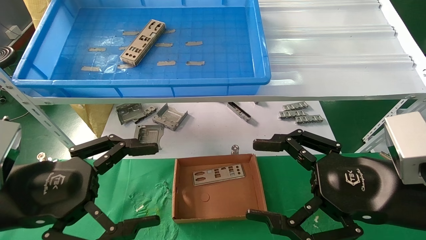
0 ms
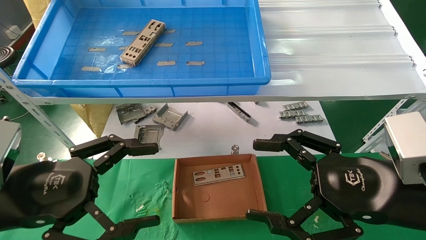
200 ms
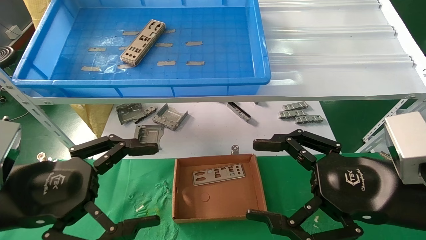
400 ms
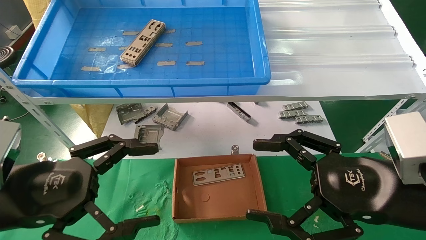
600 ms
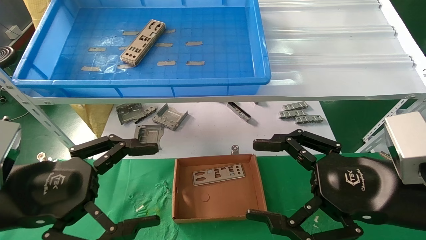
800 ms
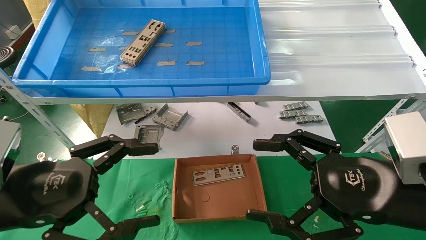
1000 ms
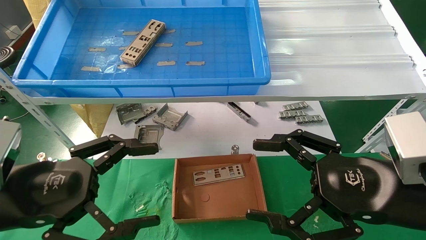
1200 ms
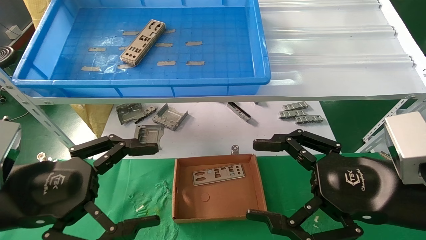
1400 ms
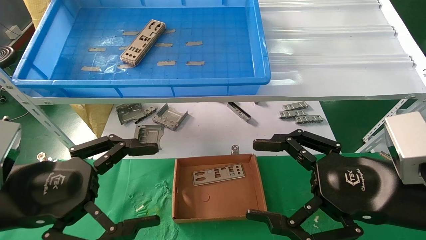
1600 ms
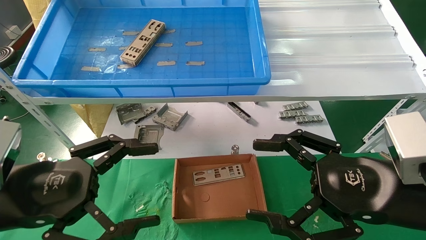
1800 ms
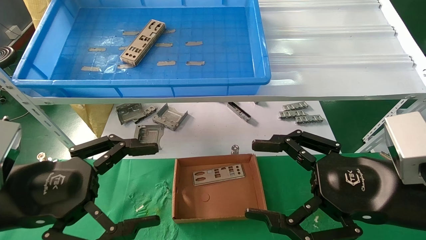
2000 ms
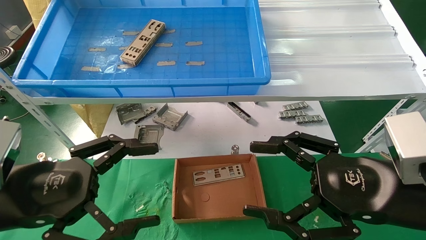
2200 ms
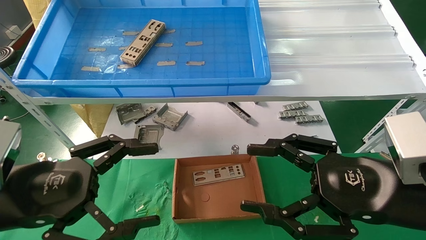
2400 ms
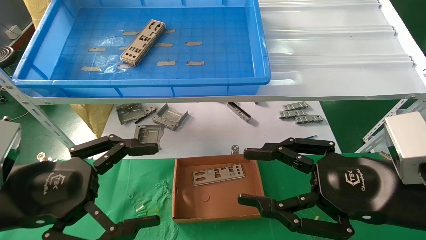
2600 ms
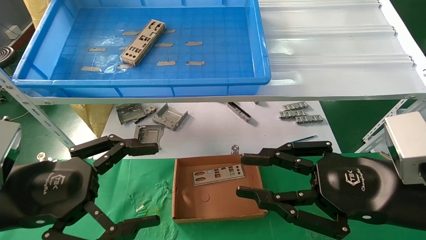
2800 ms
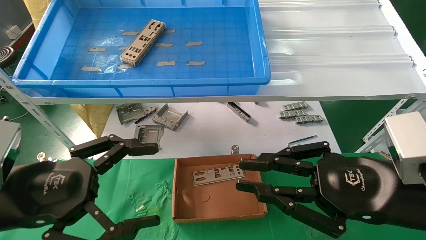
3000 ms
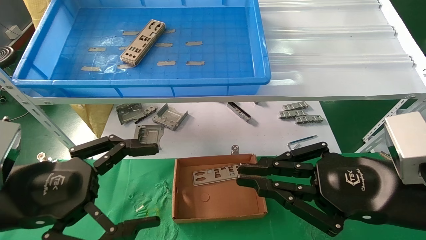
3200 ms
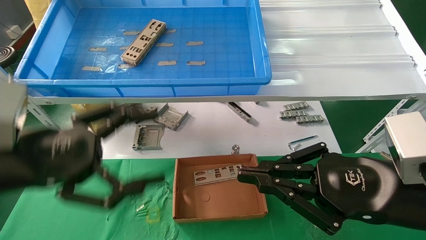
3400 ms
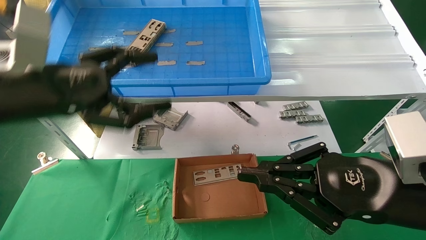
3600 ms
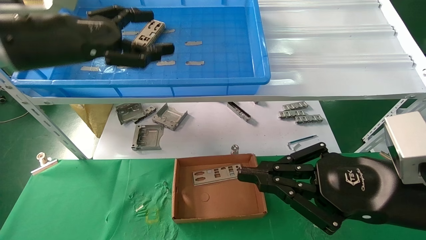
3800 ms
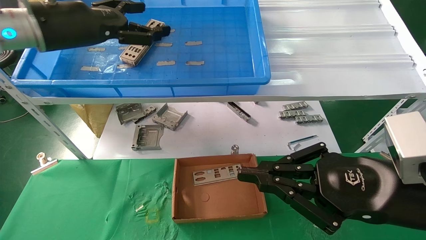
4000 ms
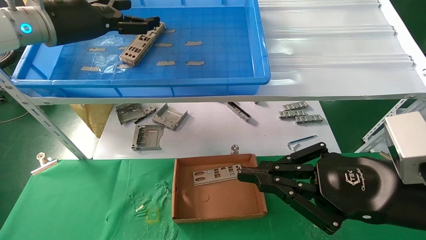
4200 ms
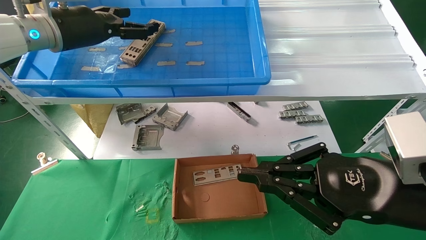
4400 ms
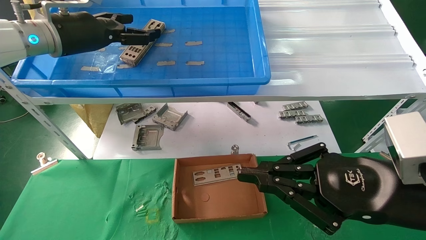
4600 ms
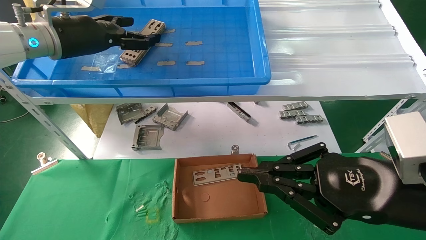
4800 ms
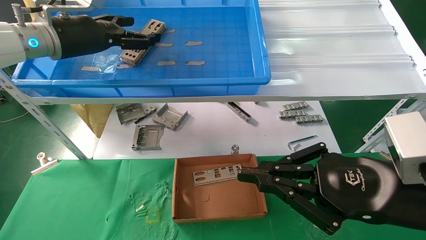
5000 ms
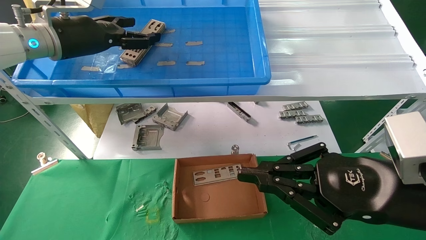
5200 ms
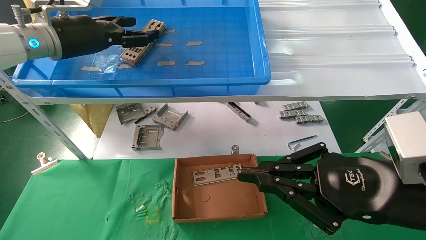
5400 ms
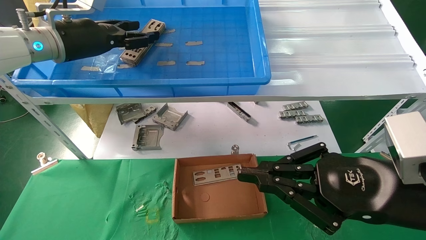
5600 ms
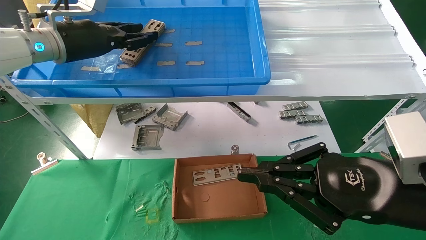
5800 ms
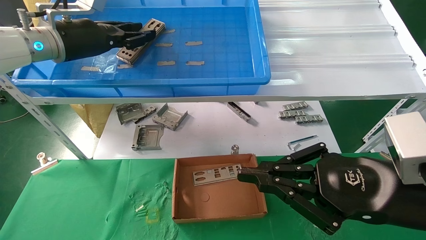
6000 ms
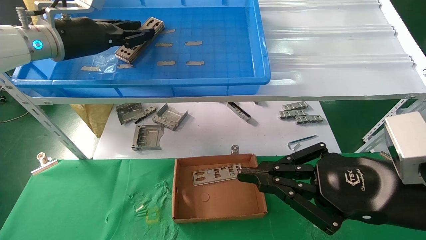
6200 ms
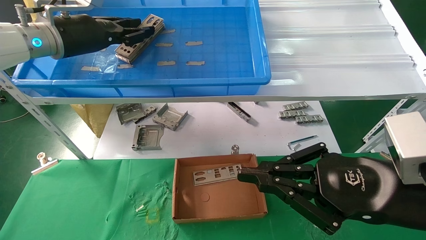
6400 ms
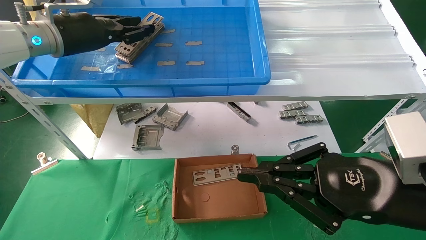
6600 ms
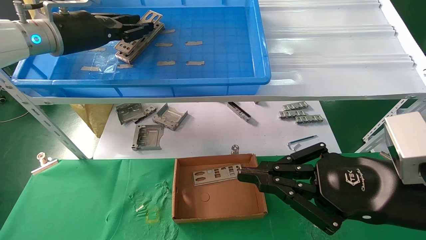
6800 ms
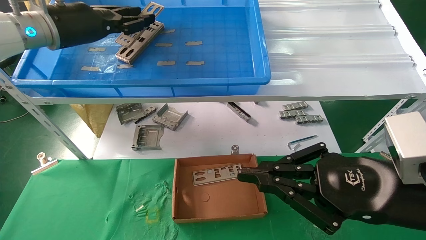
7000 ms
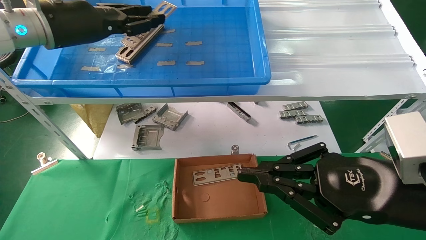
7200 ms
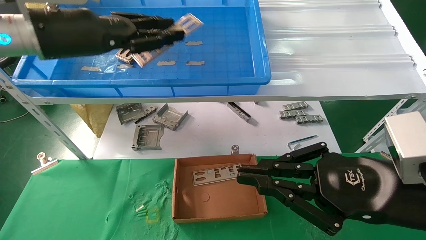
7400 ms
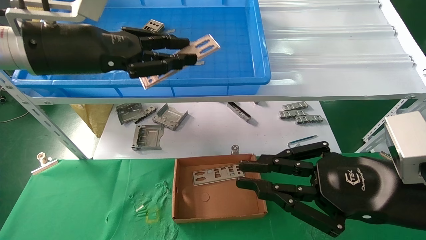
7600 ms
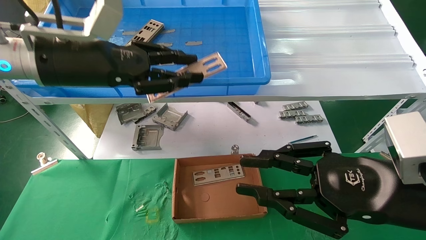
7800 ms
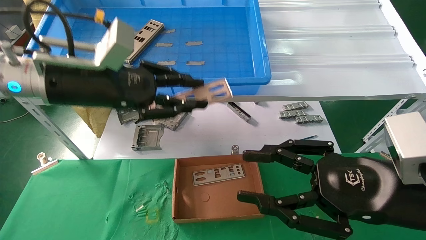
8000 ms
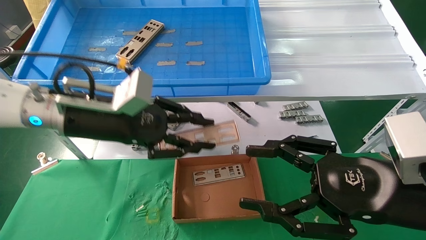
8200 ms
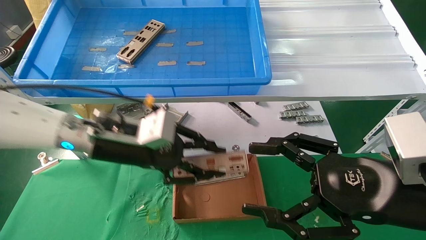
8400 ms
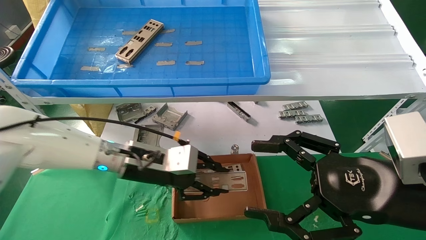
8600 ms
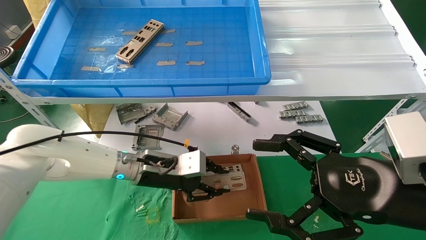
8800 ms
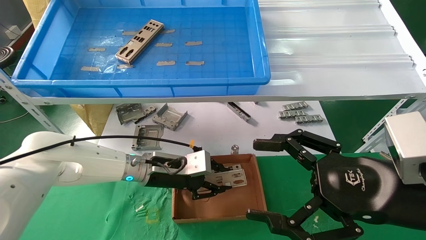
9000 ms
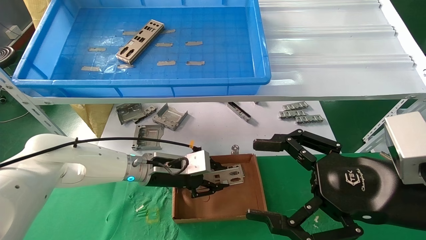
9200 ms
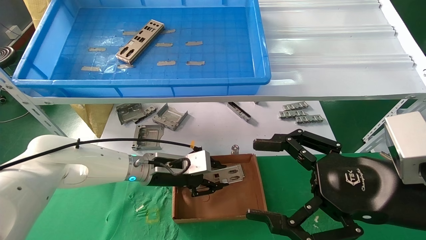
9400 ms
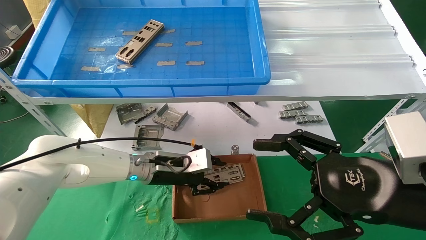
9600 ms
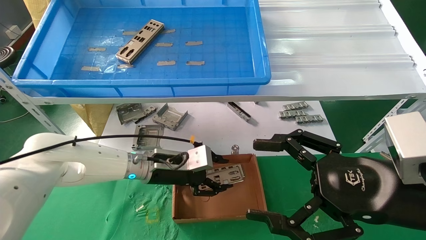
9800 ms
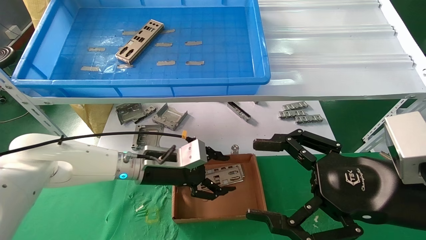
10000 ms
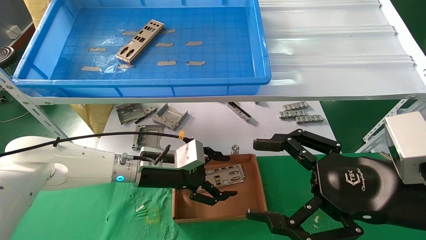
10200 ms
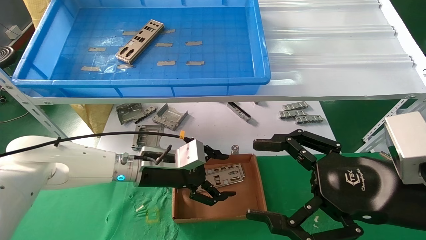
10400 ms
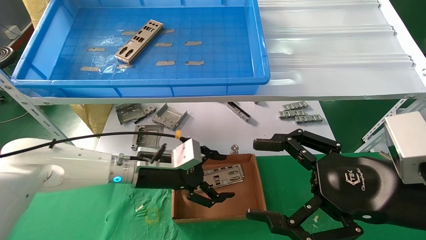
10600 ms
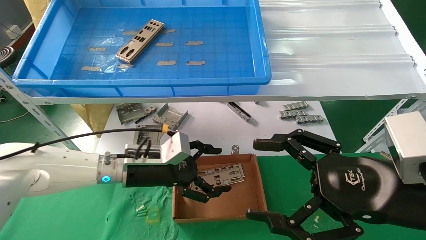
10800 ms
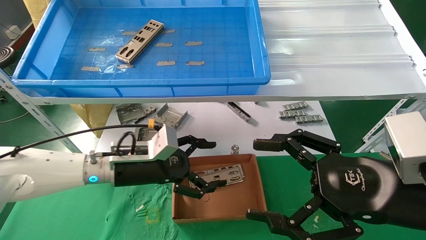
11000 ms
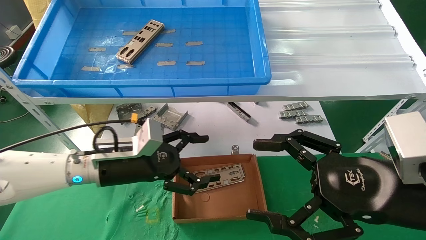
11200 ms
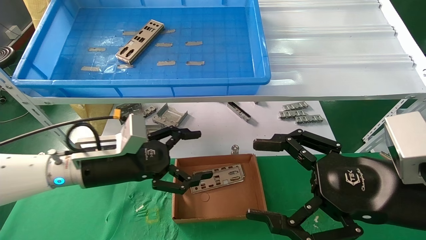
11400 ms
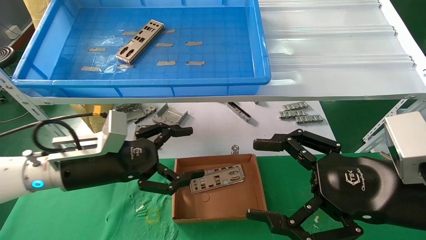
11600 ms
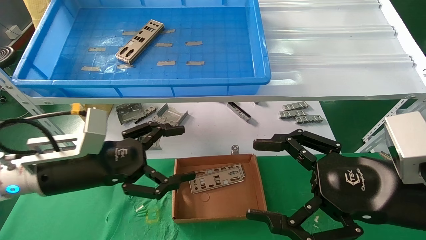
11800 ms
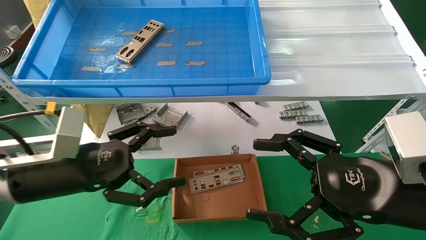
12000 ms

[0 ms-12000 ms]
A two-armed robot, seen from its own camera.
Task of the whole recording: pick up the parts on the tray and put them in the cardboard box.
Step, 3600 ms to 6200 ms: Pick up the IO bracket from the container box.
Step, 6400 ms to 9800 ms: Place the IO bracket into the ingredient slot.
0 ms to 1600 ms: Neither gripper changes place.
1600 ms to 3000 ms: The right gripper closes up.
3000 ms to 4400 ms: The left gripper heads forward and upward, covering roughly 30 cm.
4400 ms to 6000 ms: The left gripper closes its fingers.
6000 ms to 7600 ms: The left gripper travels backward by roughly 10 cm.
7600 ms to 9000 ms: The right gripper opens up; the left gripper shifts approximately 25 cm downward and to the right.
9000 ms to 10400 ms: The left gripper opens up.
10400 ms to 12000 ms: The left gripper goes roughly 20 cm backward, to the left and upward.

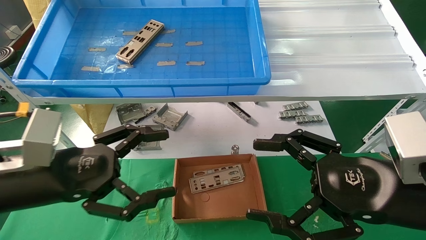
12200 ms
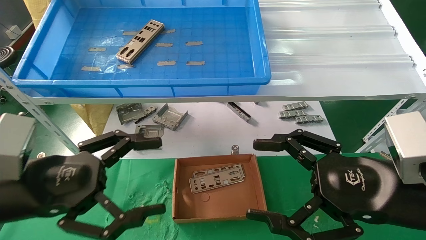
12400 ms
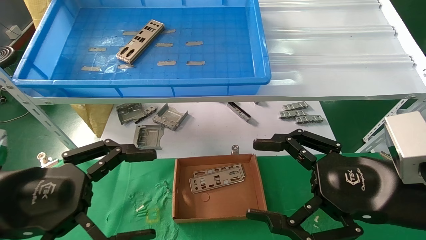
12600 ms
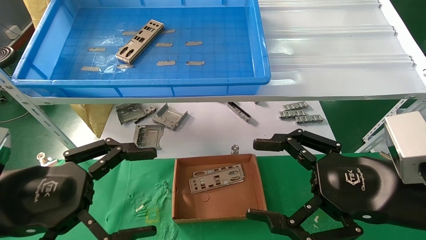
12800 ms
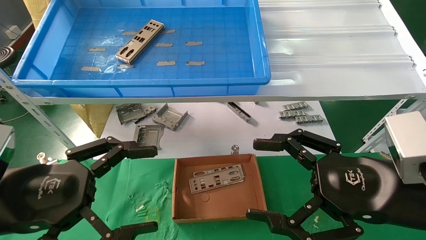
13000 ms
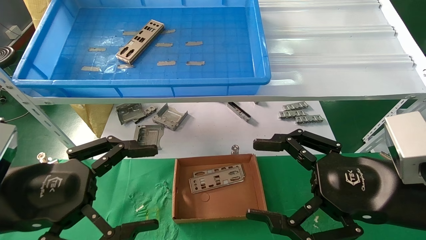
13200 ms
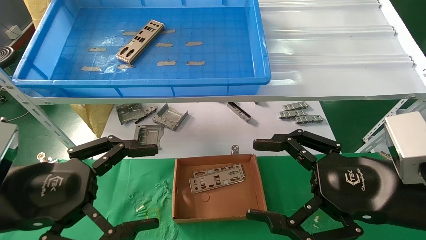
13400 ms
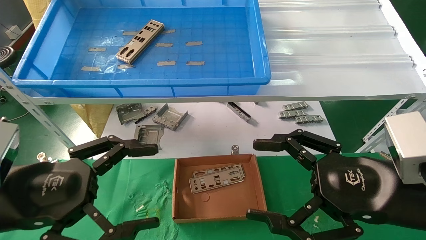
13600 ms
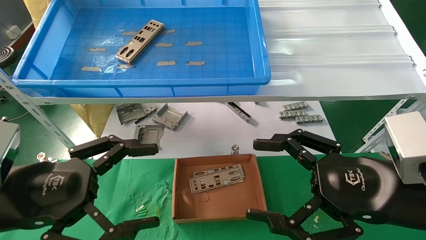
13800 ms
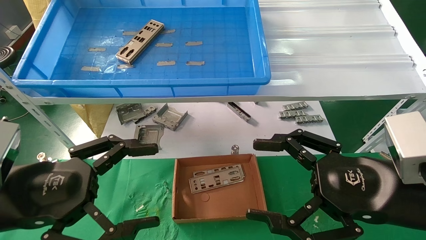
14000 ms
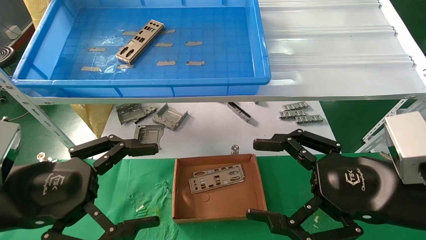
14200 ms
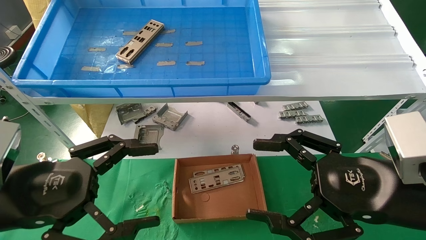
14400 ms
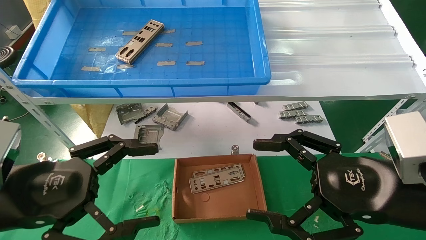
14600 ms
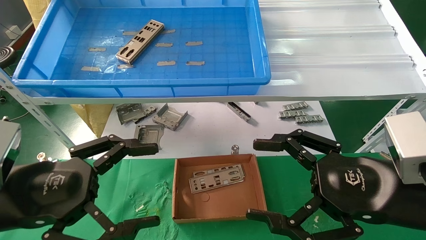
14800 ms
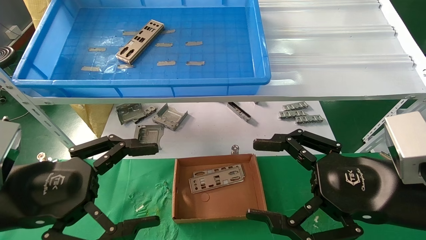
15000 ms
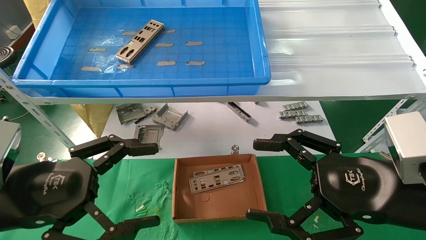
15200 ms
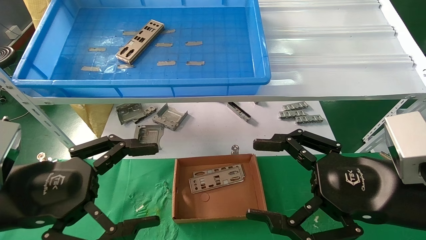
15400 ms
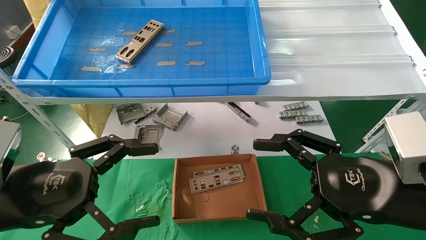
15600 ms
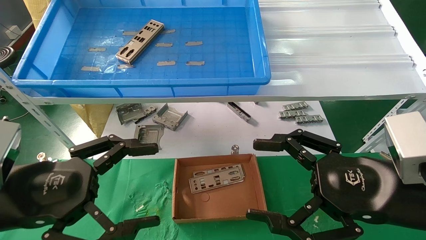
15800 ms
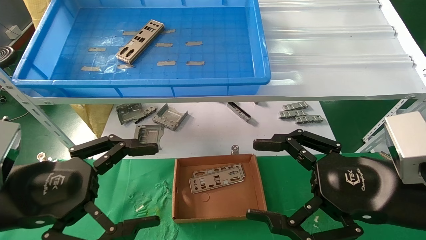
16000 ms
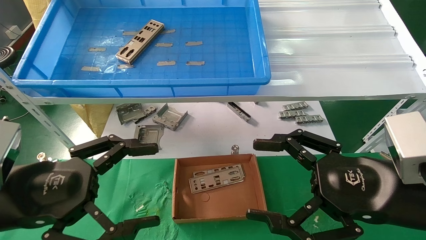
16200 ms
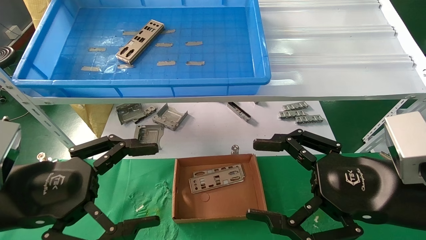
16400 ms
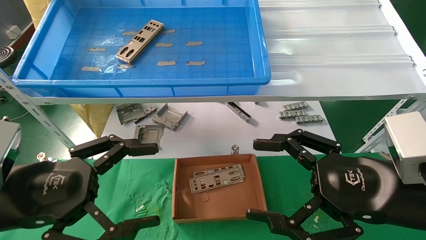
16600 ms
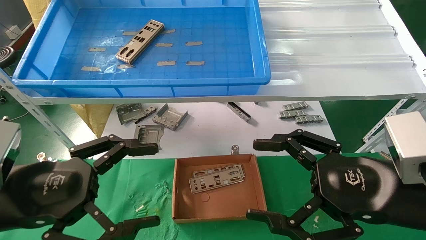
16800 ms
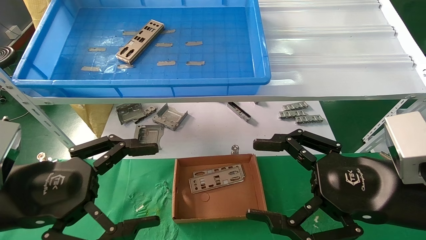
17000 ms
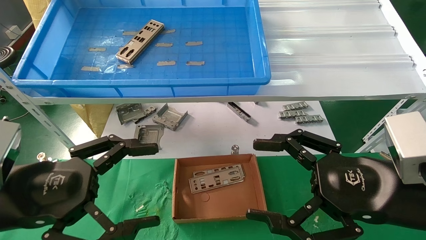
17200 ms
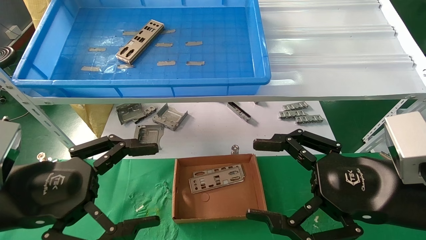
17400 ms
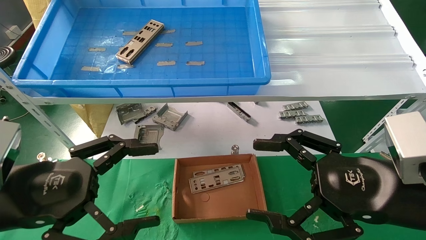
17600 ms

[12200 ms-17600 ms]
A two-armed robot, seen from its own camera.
Task of the whole recording: pick up the parts on the tray and put them in the cardboard box.
12200 ms to 13600 ms: The grippers stay close to where they were, moving slightly.
13600 ms to 17600 ms: The two grippers keep their place.
